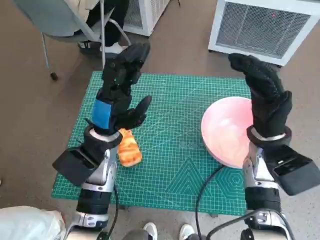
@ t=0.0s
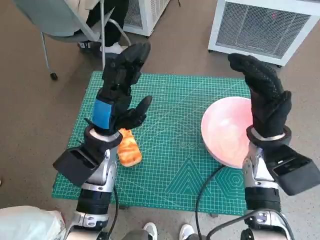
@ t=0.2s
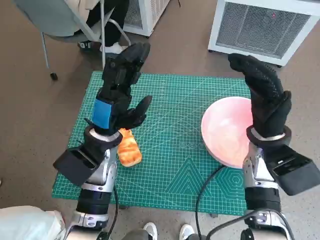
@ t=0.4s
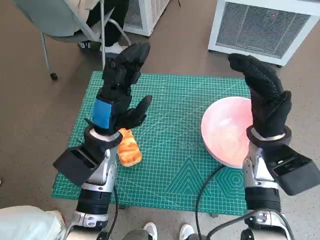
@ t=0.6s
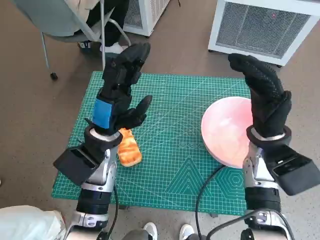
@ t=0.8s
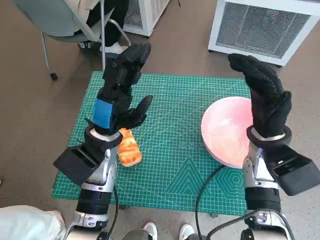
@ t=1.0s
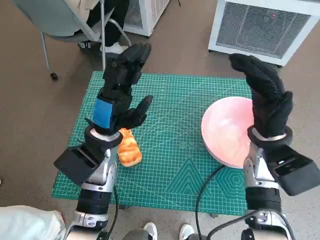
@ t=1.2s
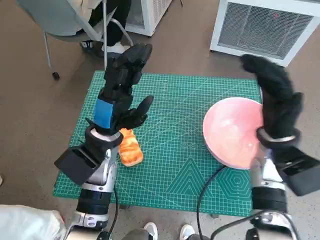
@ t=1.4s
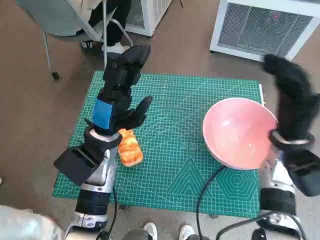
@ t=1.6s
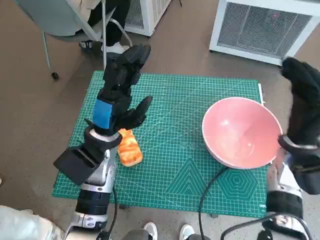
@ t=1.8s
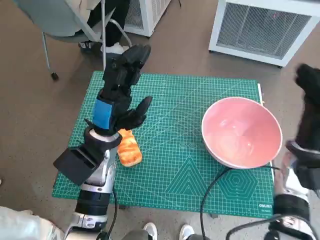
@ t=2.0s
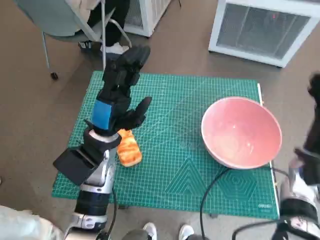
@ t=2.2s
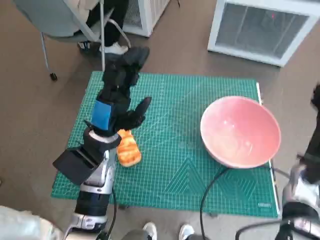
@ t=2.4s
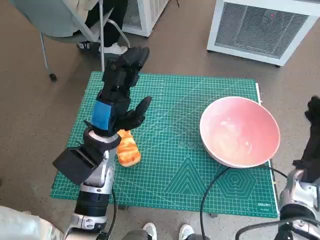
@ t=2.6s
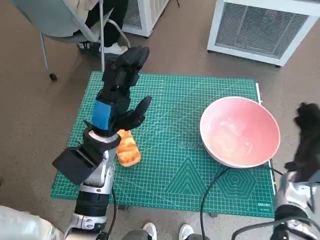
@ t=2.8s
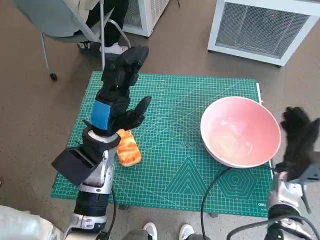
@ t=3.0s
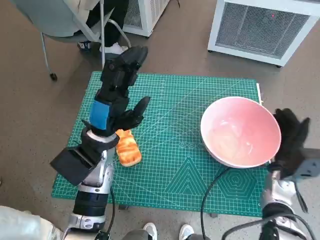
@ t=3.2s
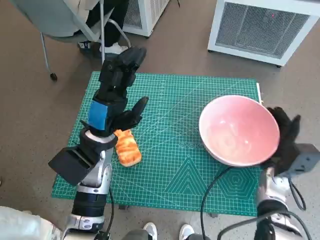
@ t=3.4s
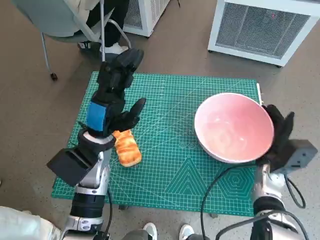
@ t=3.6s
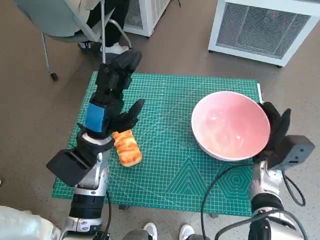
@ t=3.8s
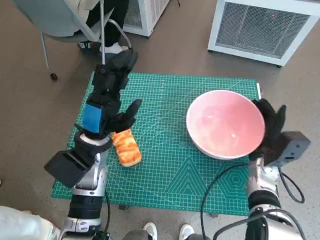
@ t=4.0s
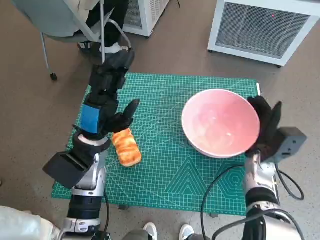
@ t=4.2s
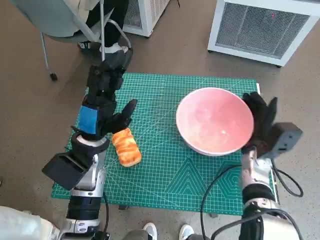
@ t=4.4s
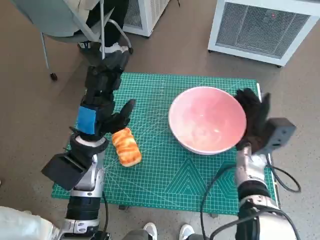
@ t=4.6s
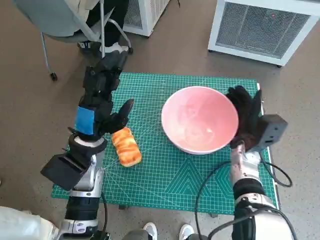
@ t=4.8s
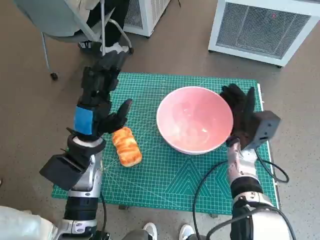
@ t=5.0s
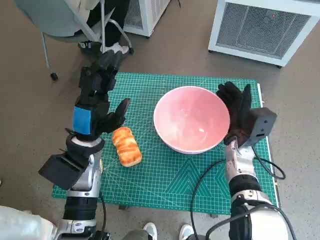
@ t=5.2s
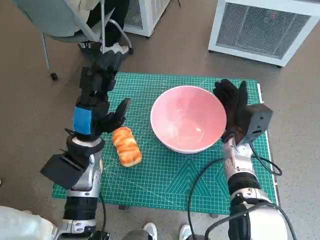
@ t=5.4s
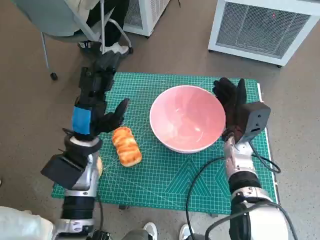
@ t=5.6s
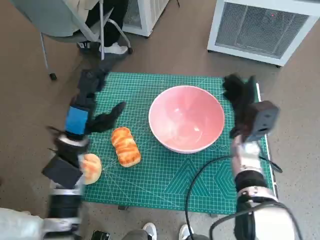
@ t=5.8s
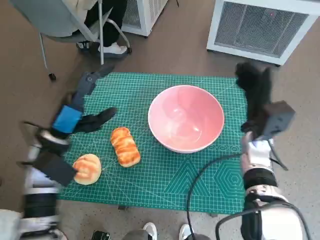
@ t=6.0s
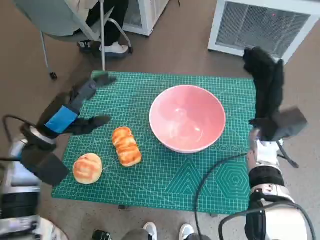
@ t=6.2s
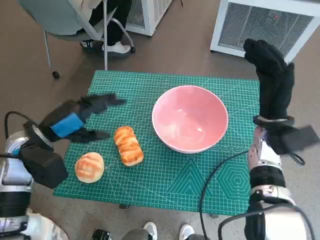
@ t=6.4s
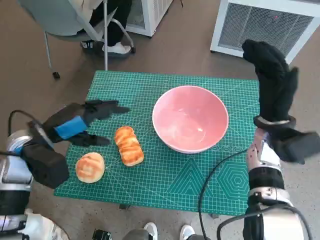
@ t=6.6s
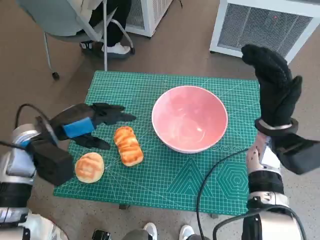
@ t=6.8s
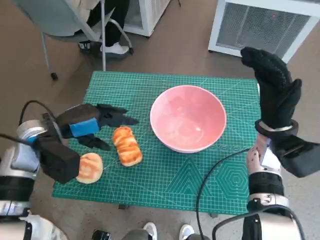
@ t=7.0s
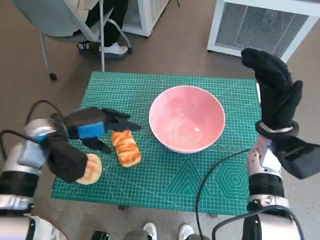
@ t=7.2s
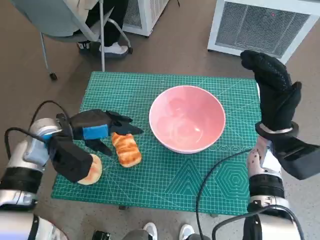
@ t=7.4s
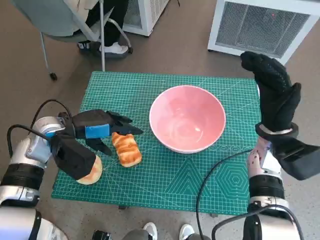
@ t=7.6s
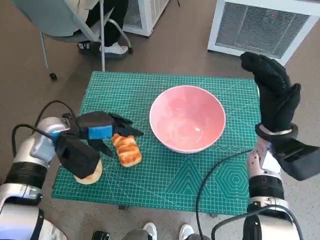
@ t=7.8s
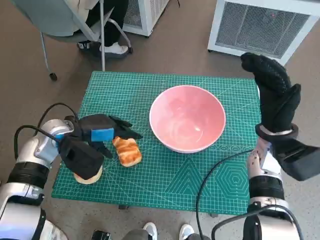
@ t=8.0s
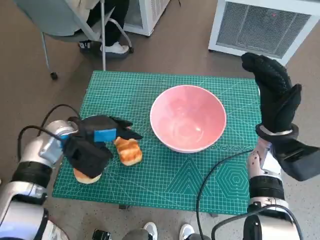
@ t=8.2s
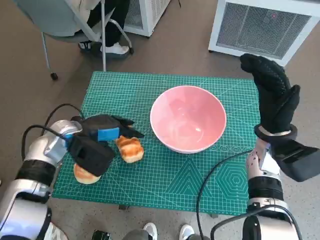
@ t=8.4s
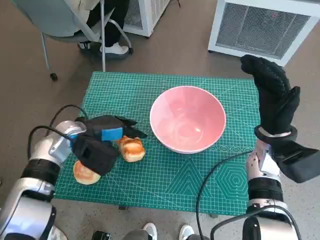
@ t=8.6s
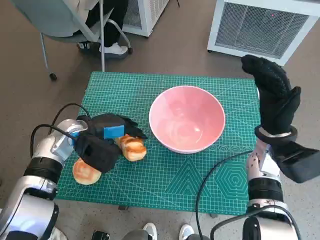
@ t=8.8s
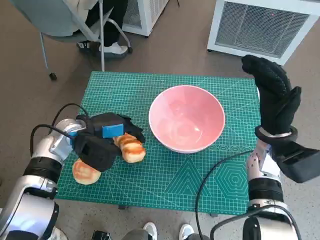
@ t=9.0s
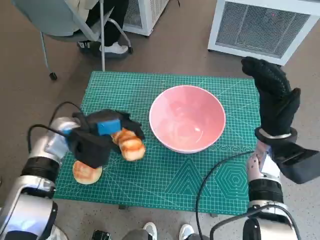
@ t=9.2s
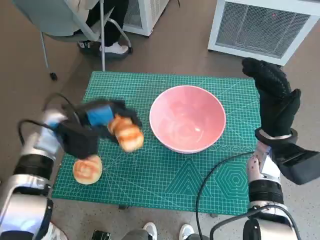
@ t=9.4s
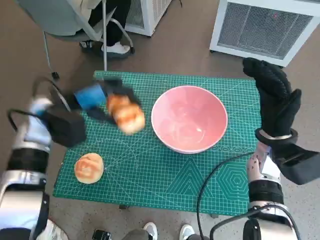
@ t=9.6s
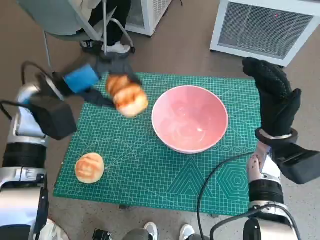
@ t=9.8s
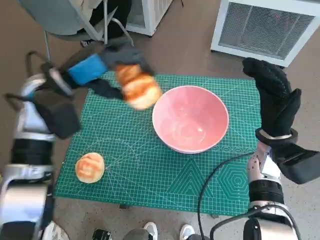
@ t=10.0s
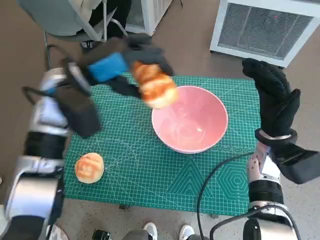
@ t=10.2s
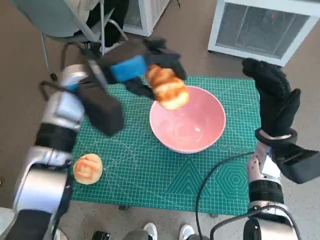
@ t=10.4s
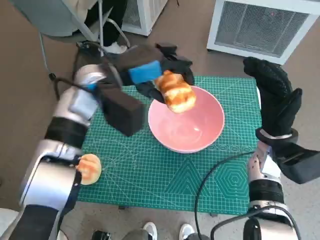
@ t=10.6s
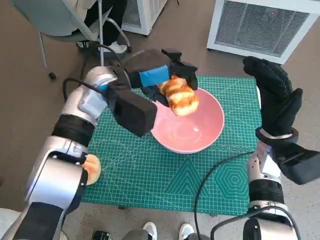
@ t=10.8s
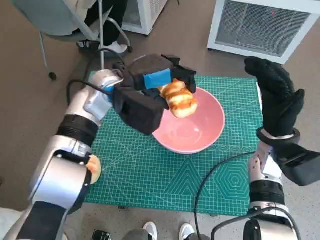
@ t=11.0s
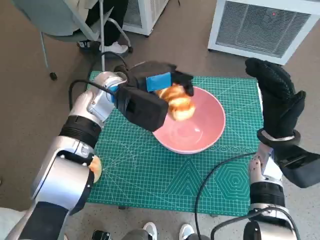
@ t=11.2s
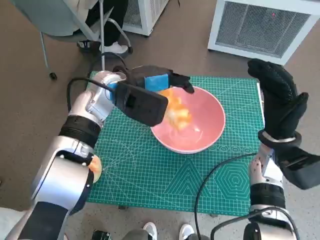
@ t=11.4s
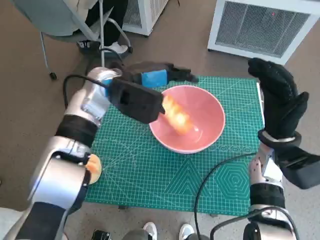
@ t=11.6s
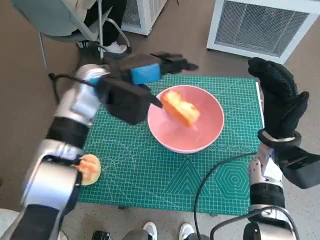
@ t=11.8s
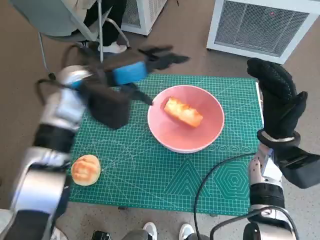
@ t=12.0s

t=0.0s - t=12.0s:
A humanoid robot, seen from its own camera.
Task of the whole recording: Push the bowl to the center of the table and put the bread into the bowl.
Step, t=0.0s - t=6.2s: Move the pink bowl to the center of table with right hand.
Step, t=6.4s - t=8.6s: Grasp the long bread with left hand.
Step, t=8.8s - t=11.6s: Place the long bread in pink bowl with left hand.
t=1.6s - t=3.0s: The right hand goes approximately 10 cm downward and to the right.
t=3.0s - t=4.4s: The right hand travels to the left by about 5 cm.
t=4.4s - t=6.0s: The left hand shifts some 5 cm to the left; the right hand is displaced upward by about 5 cm.
t=7.6s - t=9.0s: The hands move only a little.
t=9.0s - t=10.4s: The left hand travels upward and to the right by about 15 cm.

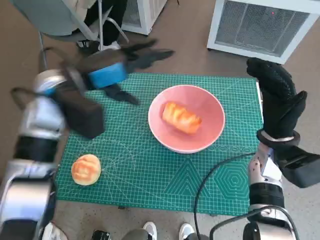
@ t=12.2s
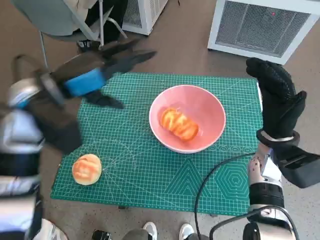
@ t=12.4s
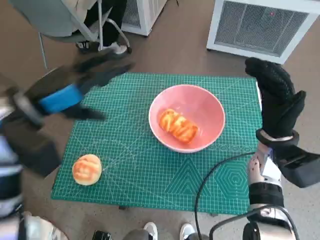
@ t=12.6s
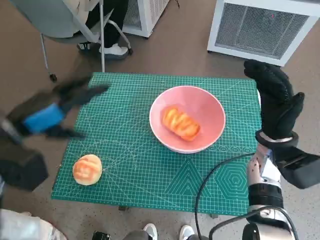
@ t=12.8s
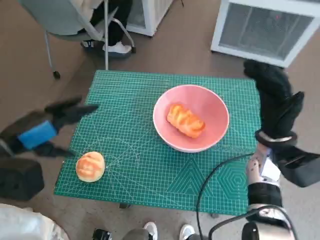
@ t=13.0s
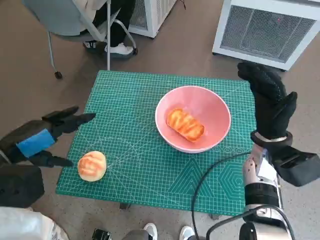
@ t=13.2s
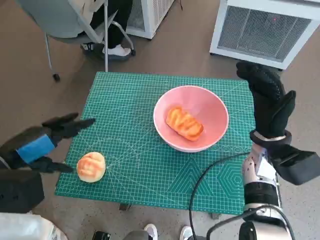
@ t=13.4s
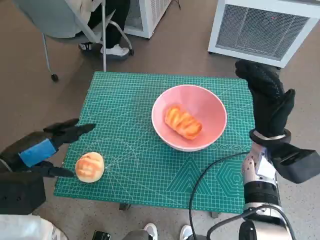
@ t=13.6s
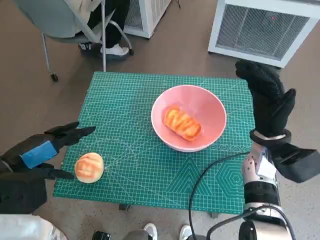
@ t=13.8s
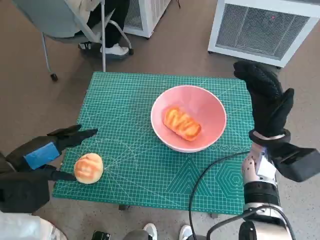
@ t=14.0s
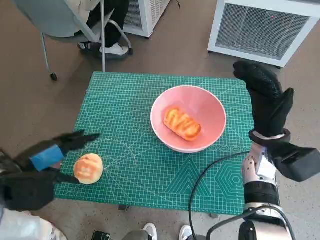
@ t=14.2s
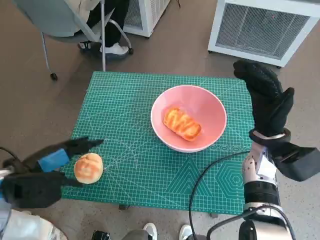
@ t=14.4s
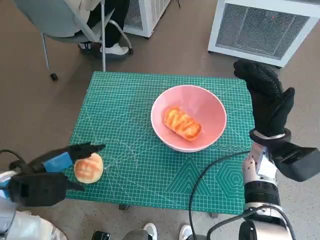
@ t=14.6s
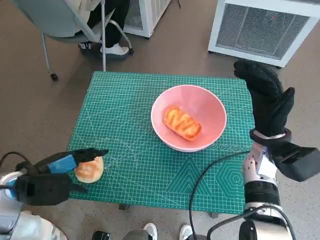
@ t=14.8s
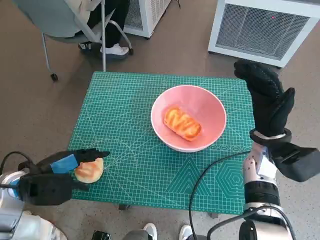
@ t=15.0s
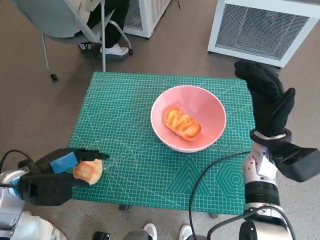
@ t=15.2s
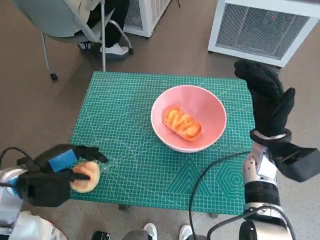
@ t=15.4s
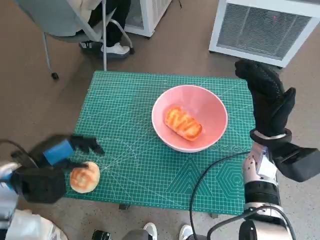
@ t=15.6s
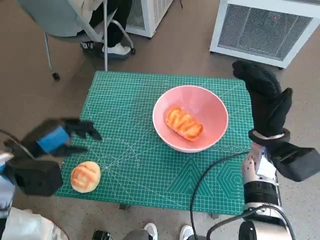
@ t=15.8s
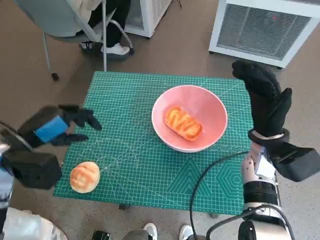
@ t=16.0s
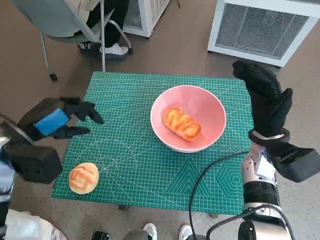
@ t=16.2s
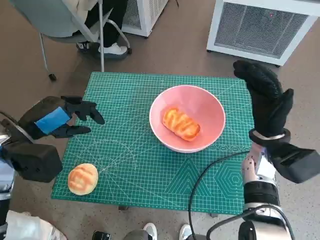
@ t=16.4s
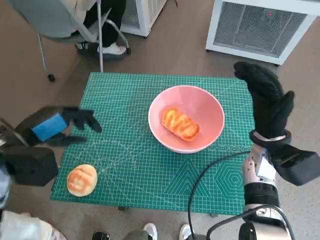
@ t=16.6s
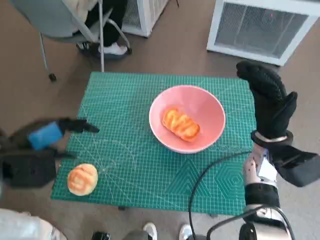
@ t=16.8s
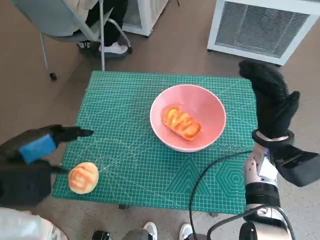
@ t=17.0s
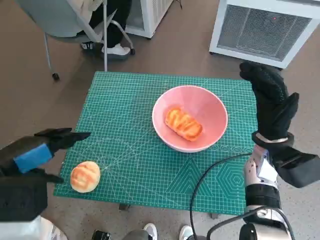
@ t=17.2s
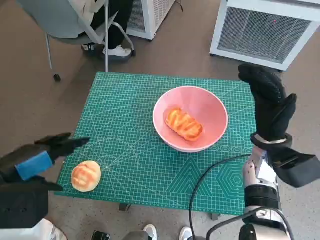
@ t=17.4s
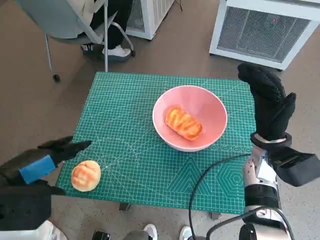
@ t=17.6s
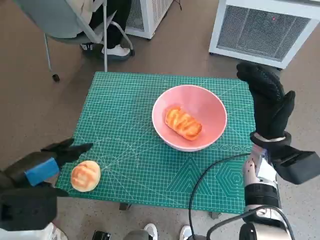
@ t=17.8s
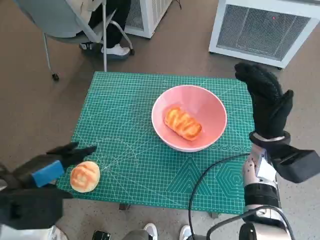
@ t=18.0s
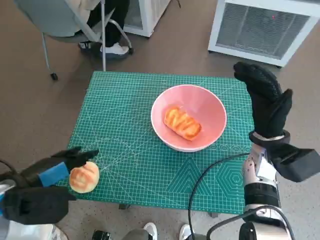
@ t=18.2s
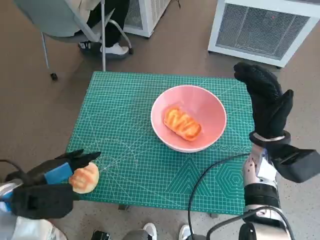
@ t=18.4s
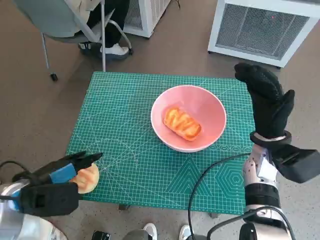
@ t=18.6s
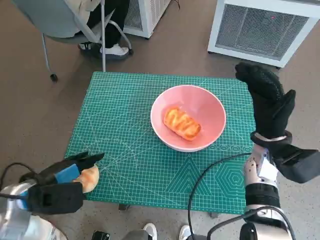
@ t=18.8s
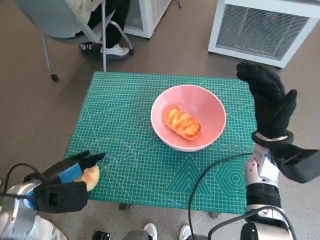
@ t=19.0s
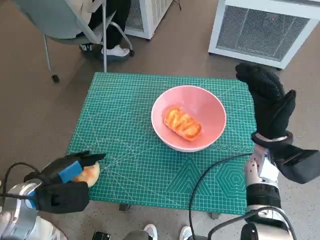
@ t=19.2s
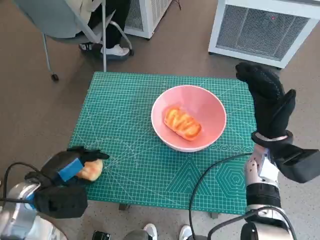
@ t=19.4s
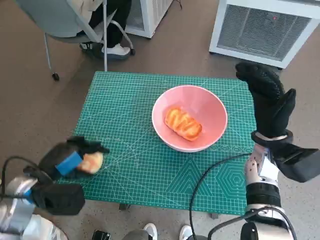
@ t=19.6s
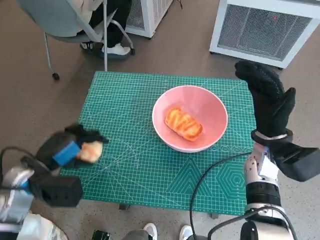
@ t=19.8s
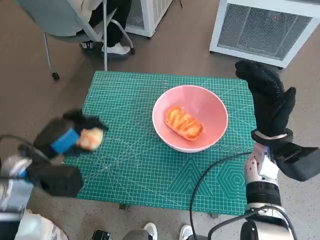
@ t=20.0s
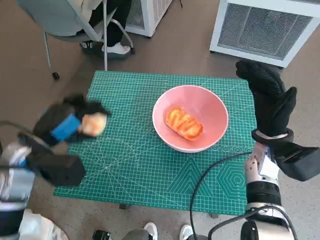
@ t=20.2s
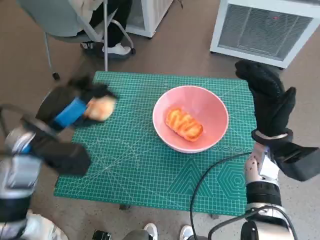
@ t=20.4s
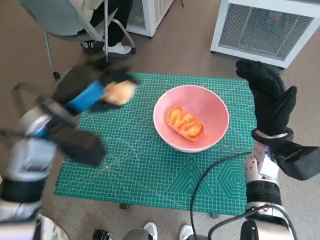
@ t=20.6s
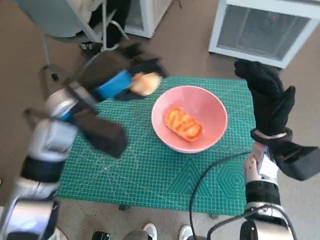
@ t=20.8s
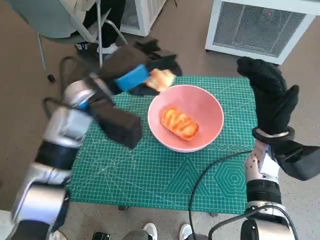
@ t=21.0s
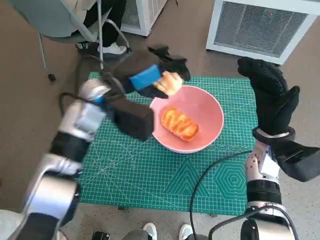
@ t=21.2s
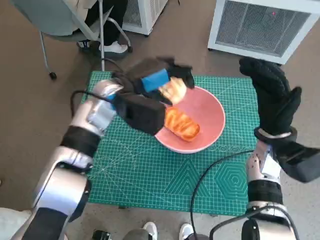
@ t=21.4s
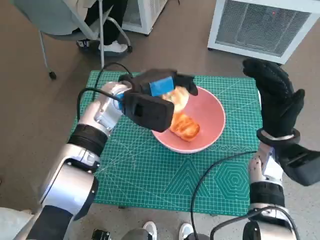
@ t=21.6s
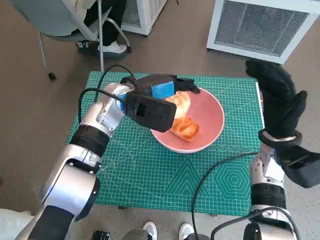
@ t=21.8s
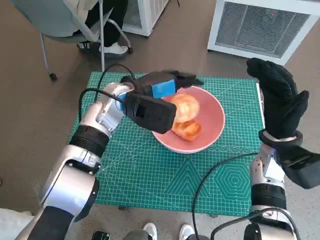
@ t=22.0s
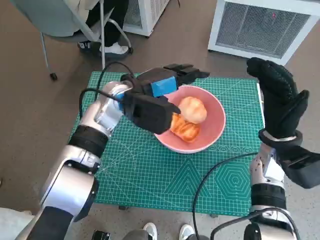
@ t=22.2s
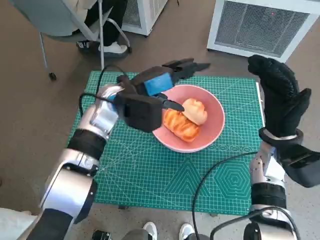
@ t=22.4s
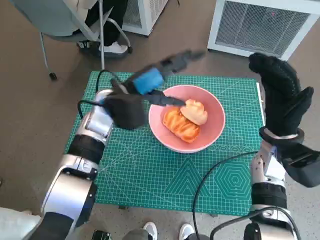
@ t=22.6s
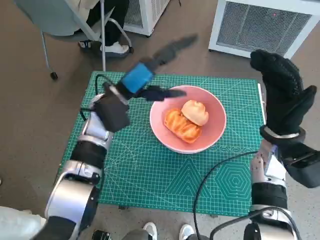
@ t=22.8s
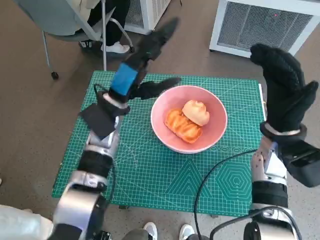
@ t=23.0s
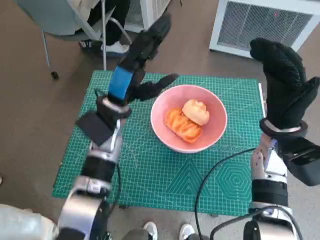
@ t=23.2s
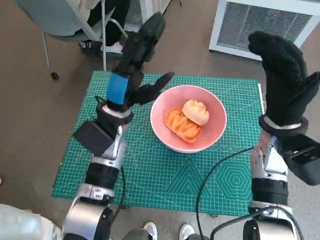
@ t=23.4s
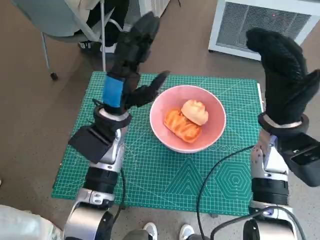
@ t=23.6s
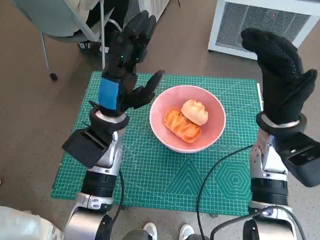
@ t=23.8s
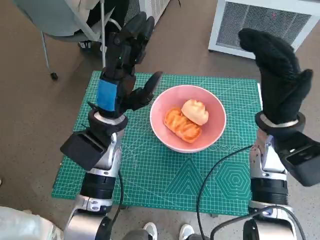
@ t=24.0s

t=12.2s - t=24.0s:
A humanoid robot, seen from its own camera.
Task of the whole recording: Push the bowl to the center of the table and put the bread into the bowl.
Step, t=12.2s - t=15.0s: Grasp the round bread with left hand.
Step, t=15.2s - t=22.6s: Place the round bread in pink bowl with left hand.
t=12.2s - t=13.6s: The left hand goes approximately 20 cm backward and to the left.
t=13.6s - t=15.2s: The left hand heads downward, covering about 5 cm.
t=15.2s - t=16.6s: The left hand goes approximately 5 cm upward.
t=16.6s - t=18.2s: The left hand moves backward, approximately 5 cm.
t=18.2s - t=19.6s: The left hand travels downward by roughly 5 cm.
t=19.6s - t=21.0s: The left hand moves upward, to the right and forward, approximately 20 cm.
t=21.0s - t=22.6s: The left hand changes place by roughly 5 cm.
t=22.6s - t=24.0s: The left hand travels backward by some 5 cm. The right hand changes place by about 5 cm.
